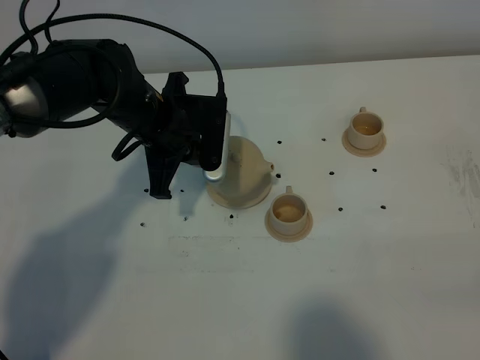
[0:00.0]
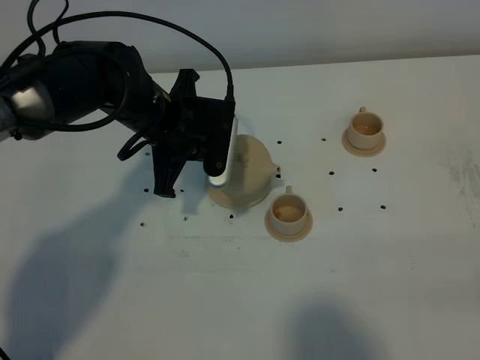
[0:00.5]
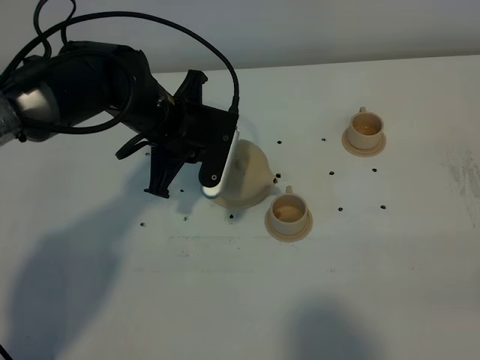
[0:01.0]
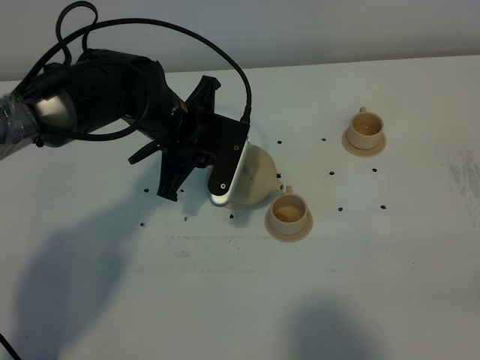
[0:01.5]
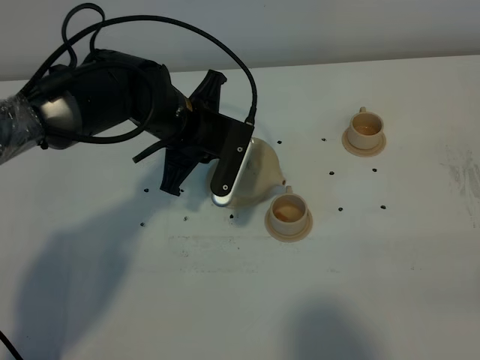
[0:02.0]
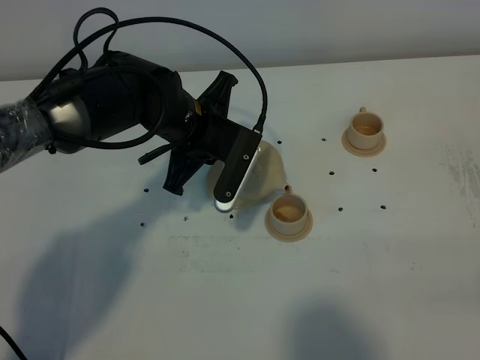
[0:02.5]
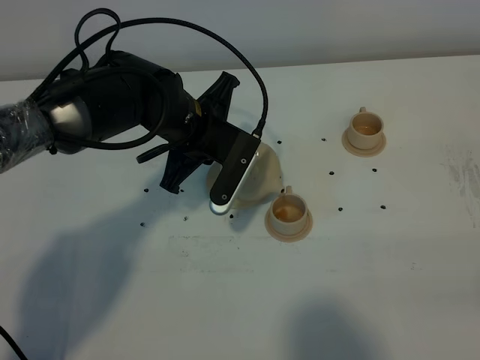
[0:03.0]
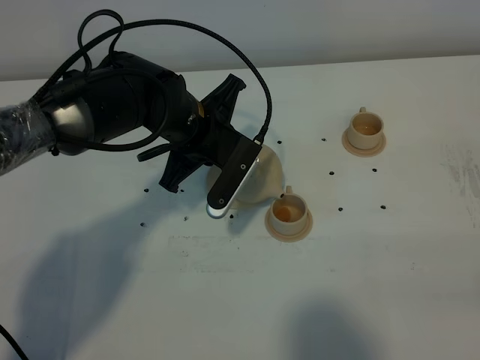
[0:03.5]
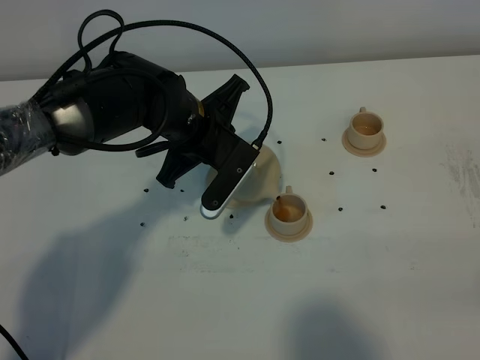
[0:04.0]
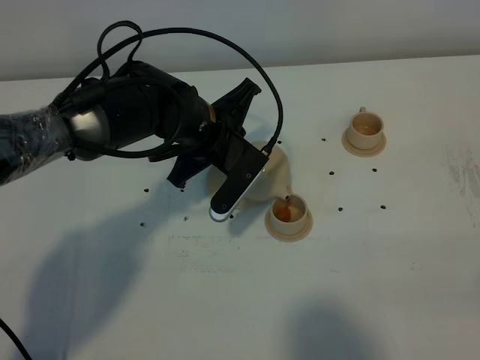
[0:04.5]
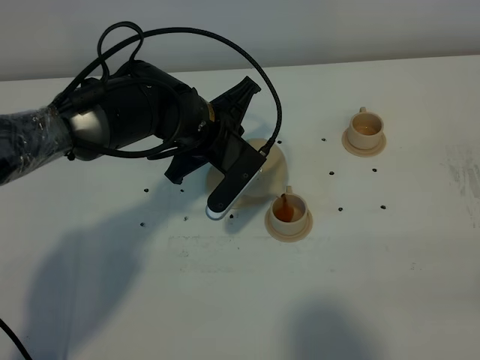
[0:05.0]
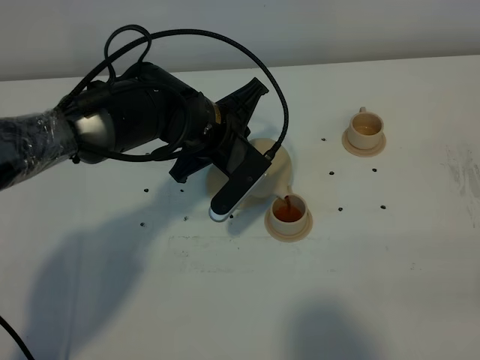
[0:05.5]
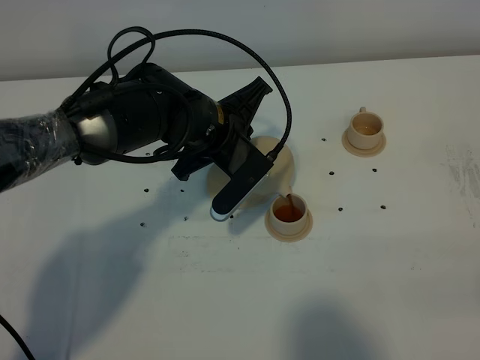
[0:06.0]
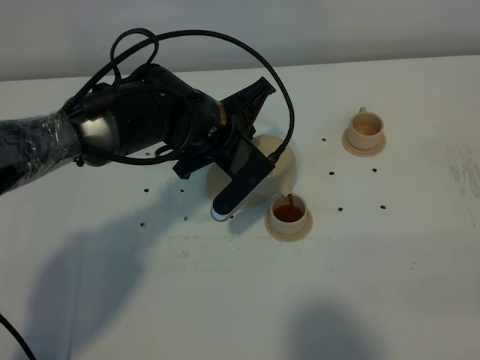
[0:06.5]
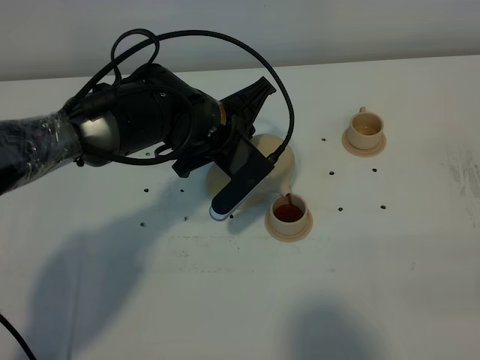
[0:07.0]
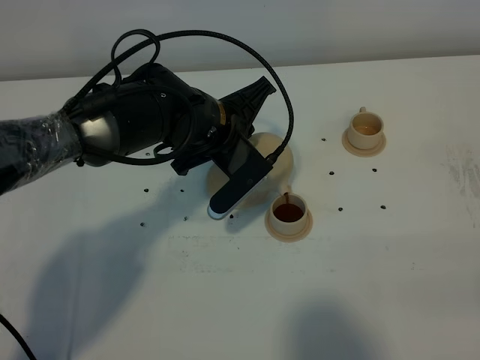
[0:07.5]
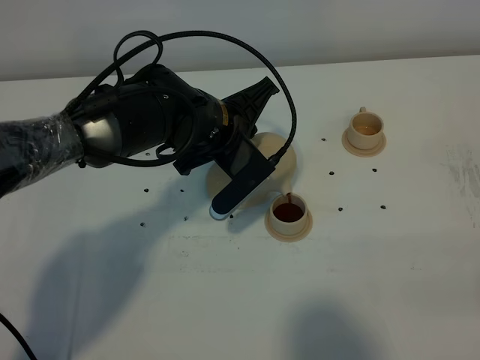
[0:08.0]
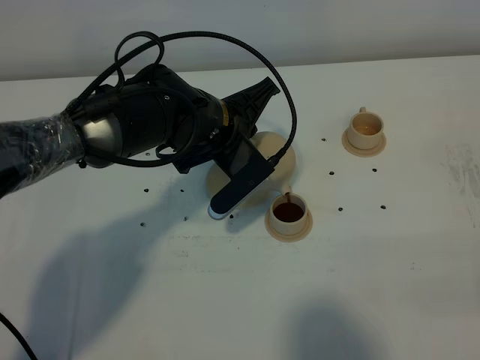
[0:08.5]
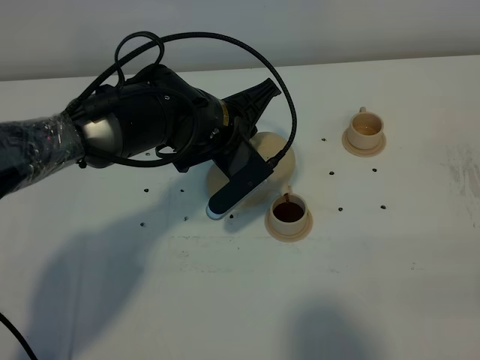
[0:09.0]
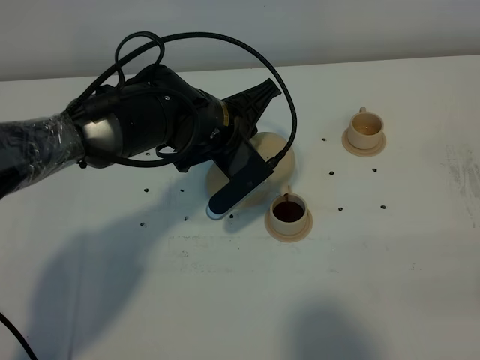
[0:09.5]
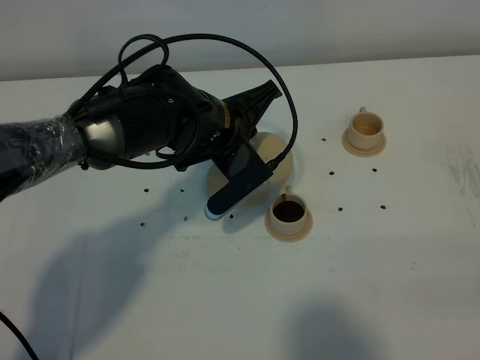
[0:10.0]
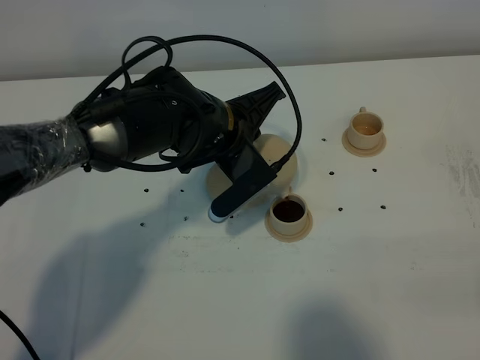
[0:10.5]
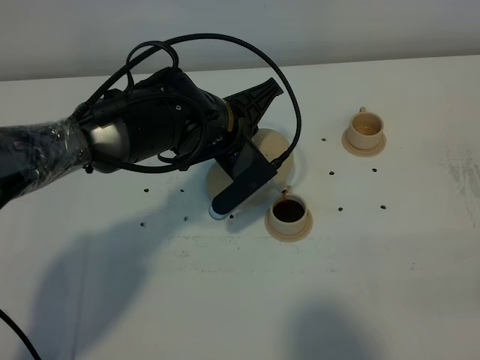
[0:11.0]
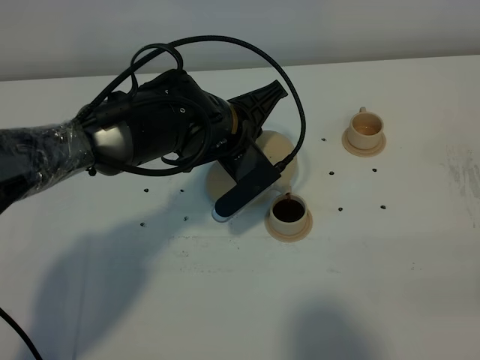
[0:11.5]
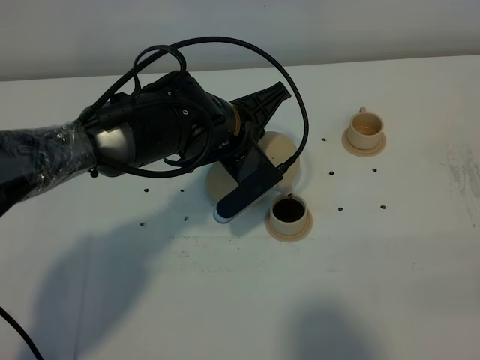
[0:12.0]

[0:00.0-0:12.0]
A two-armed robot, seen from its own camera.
Task of the whole recording: grasp the brown teapot and pour the tea into the two brown teacups one by one, put the brown teapot back in its original place.
0:02.0 to 0:04.0: There are only small adjustments of the grippers.
0:04.0 to 0:08.0: There are only small adjustments of the grippers.
0:08.0 to 0:10.0: The two grippers keep their place.
0:10.0 to 0:12.0: The grippers stay close to where they were, moving slightly.

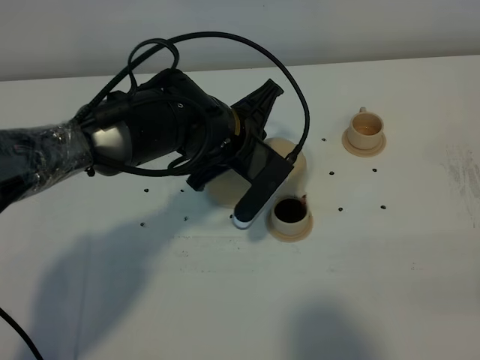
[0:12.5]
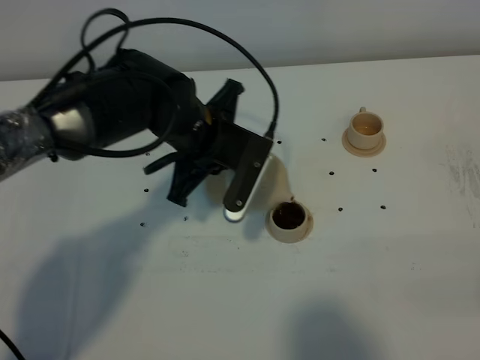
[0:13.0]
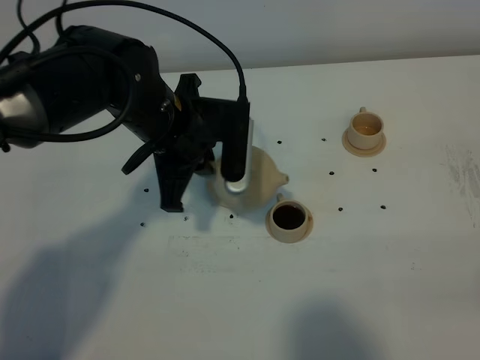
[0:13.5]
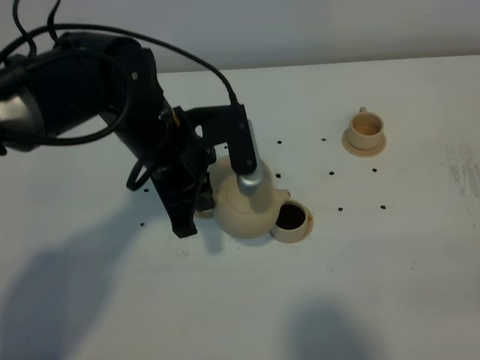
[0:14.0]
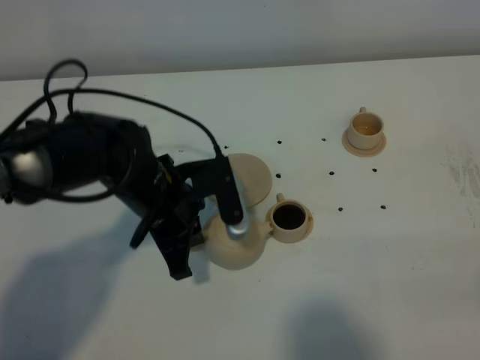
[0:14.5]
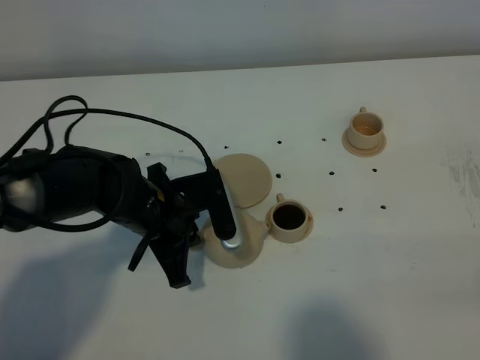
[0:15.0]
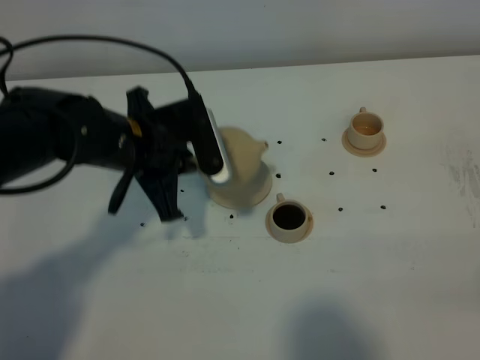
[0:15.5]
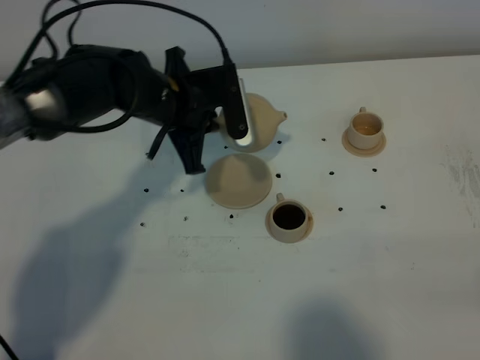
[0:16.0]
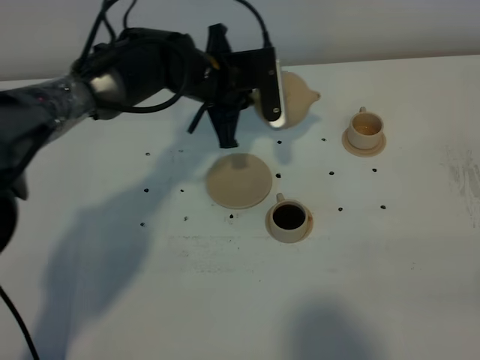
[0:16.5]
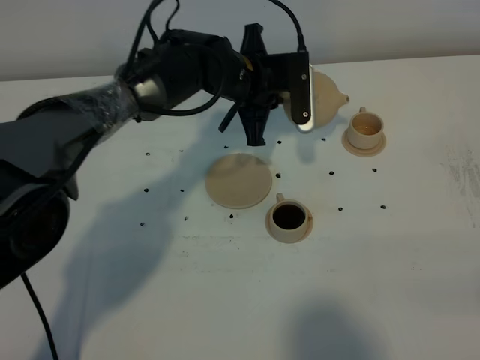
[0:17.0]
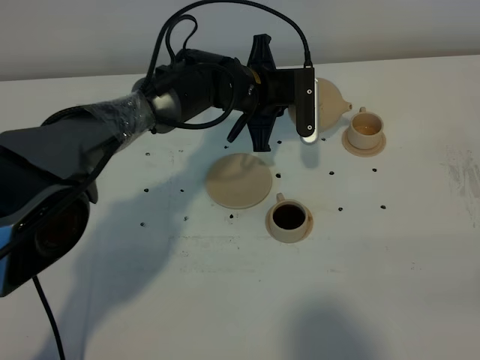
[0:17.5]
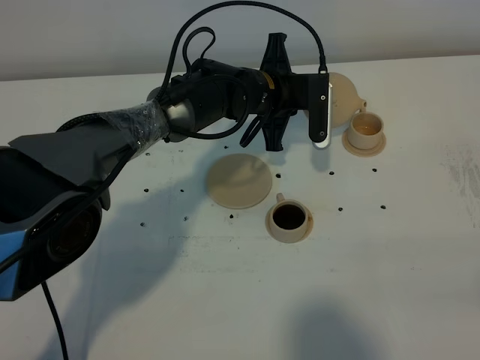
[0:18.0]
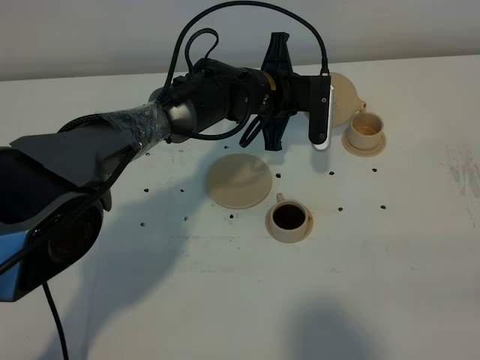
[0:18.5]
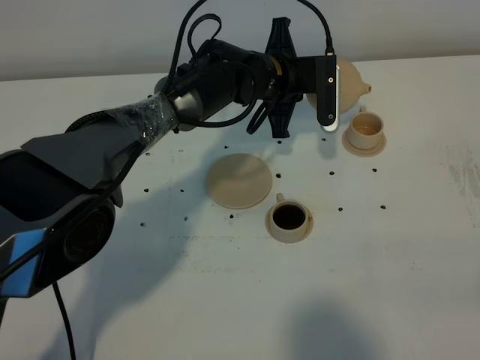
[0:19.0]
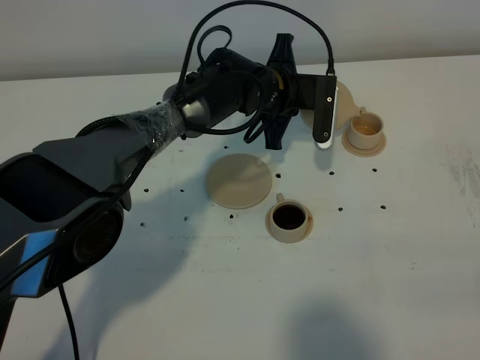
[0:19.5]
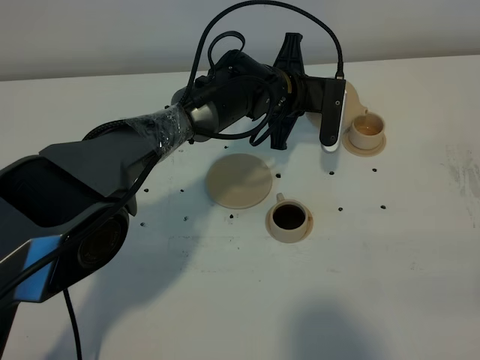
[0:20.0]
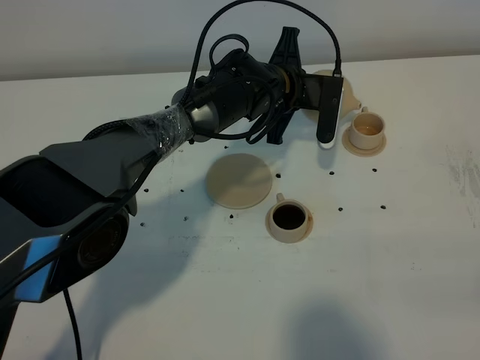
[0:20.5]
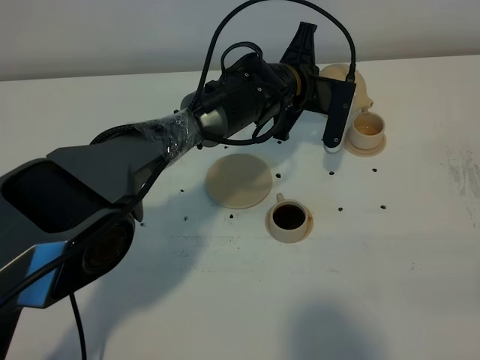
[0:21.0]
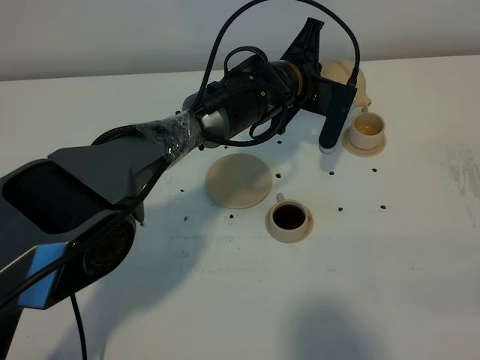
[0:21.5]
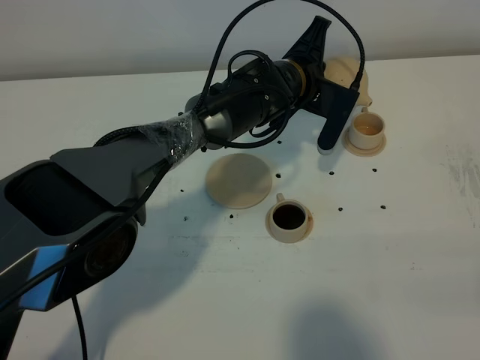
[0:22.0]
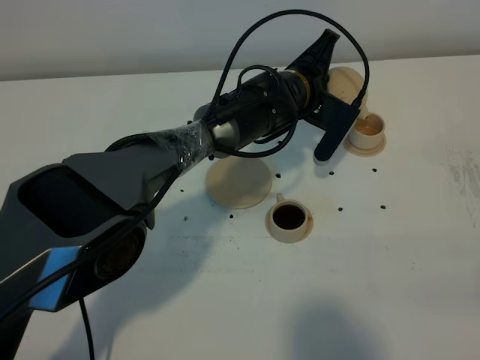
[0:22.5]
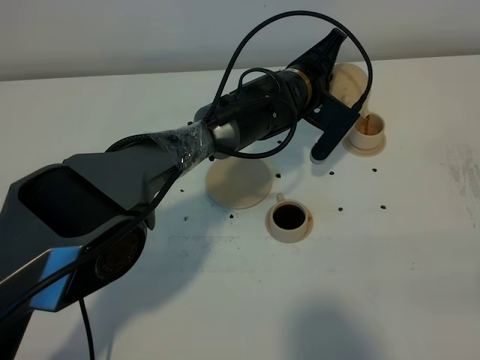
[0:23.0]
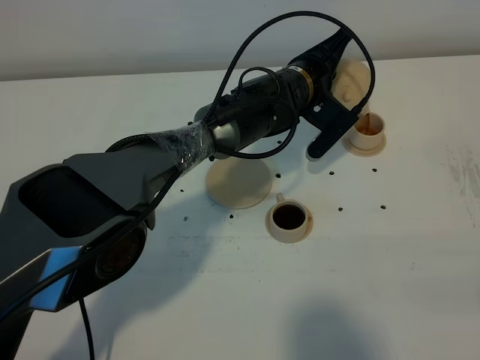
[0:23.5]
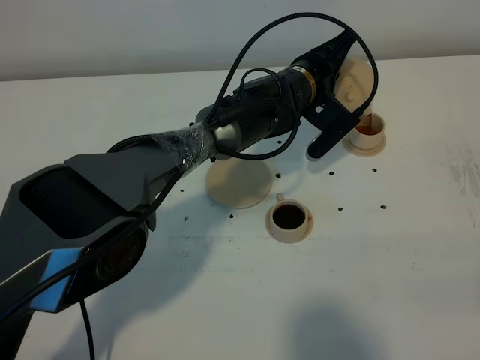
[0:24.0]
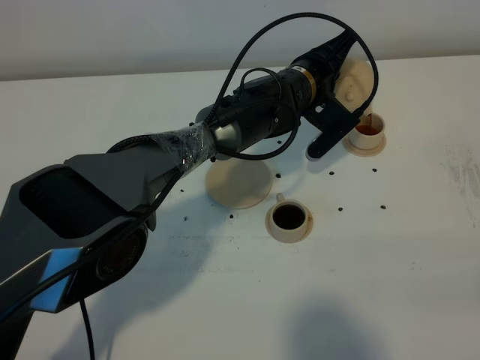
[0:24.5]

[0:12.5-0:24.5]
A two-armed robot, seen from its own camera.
Task of the whole recording: grasp the brown teapot and pour the tea into the two brown teacups one by one, put the brown teapot back in its original place.
0:12.5 to 0:14.5: The left gripper heads to the left and backward, covering approximately 10 cm.
0:14.5 to 0:16.5: The left gripper is displaced forward and to the right by roughly 15 cm.
0:16.5 to 0:18.5: The left gripper travels to the right by some 5 cm.
0:18.5 to 0:20.5: The grippers move only a little.
0:22.5 to 0:24.5: The grippers move only a little.

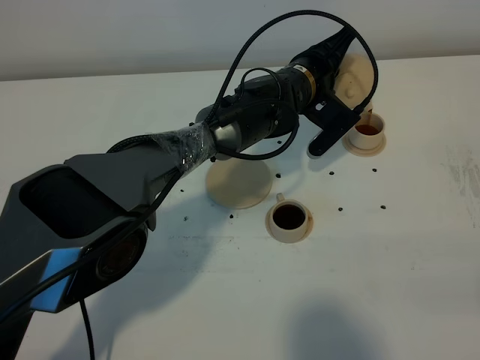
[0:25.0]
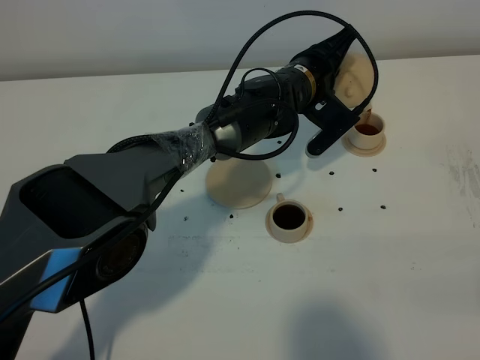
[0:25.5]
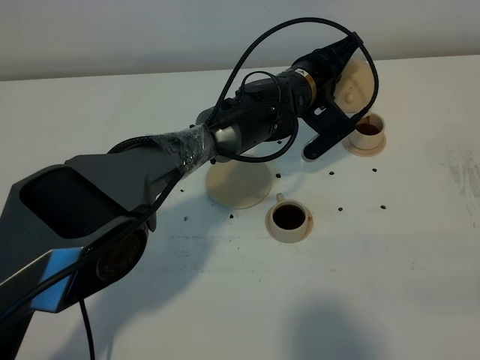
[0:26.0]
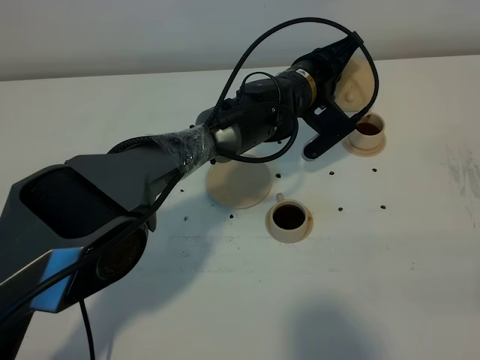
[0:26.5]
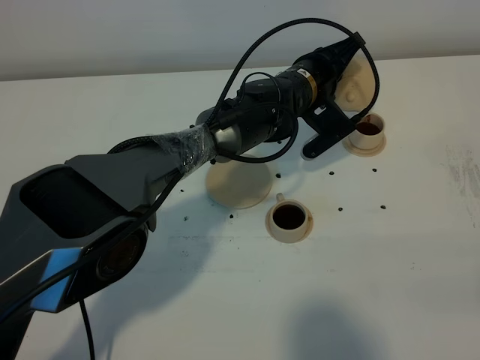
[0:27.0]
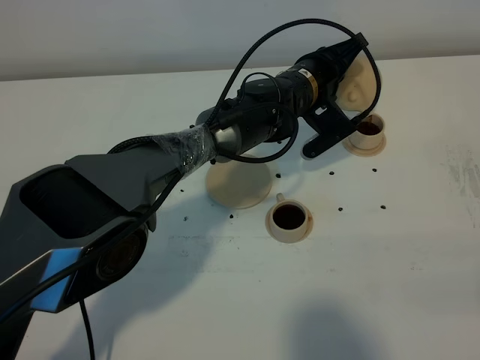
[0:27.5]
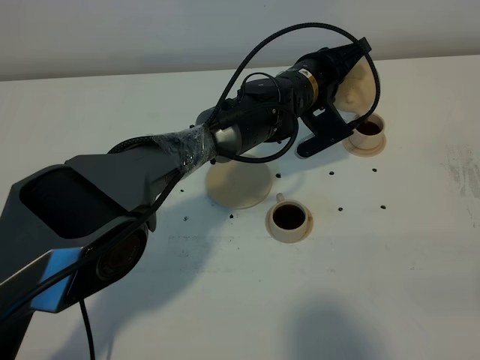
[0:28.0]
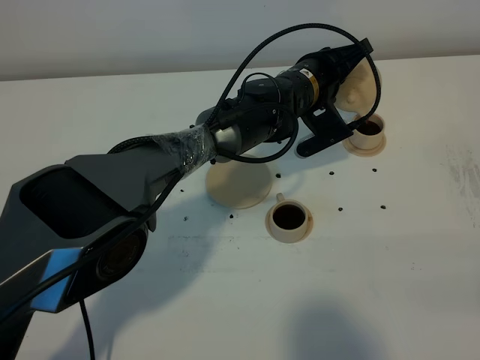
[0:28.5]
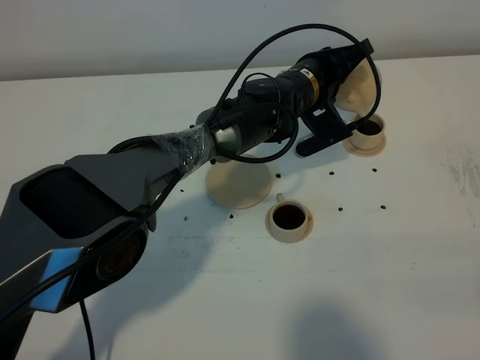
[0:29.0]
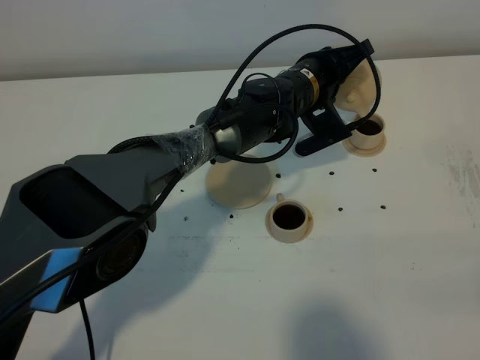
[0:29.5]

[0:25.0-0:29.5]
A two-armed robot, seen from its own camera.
Task of the whole recording: grasp the brown teapot and pour the tea into the two brown teacups one by one, put the brown teapot back in its original place.
0:25.0 to 0:29.5: There are only small adjustments of the grippers.
